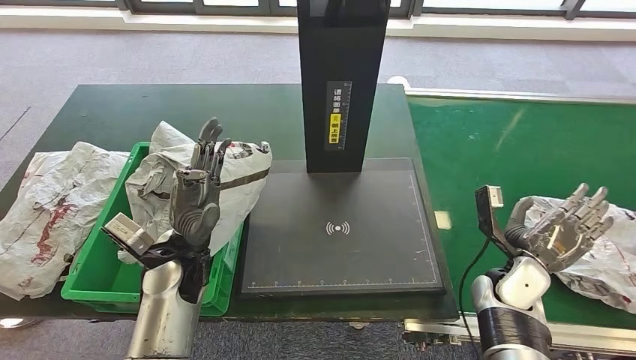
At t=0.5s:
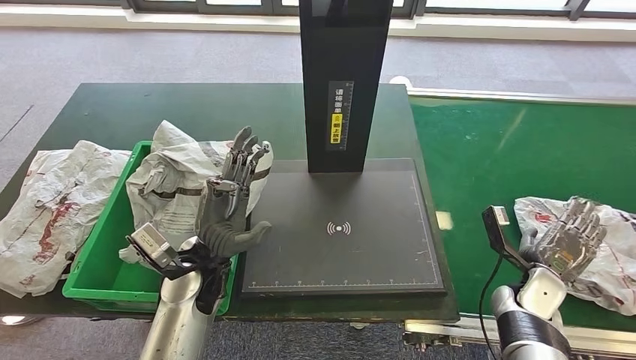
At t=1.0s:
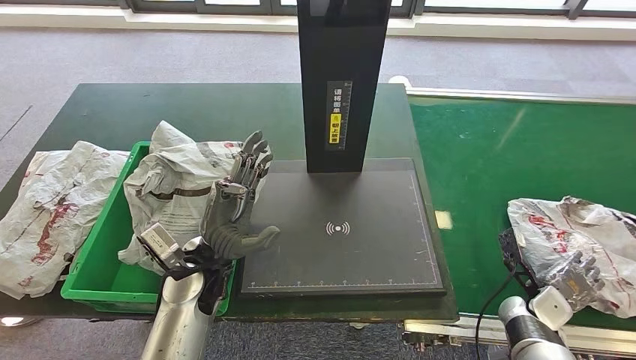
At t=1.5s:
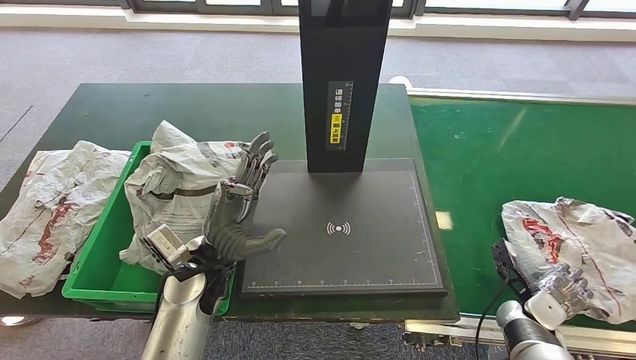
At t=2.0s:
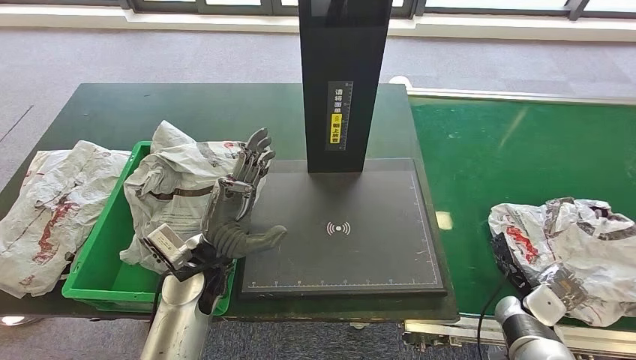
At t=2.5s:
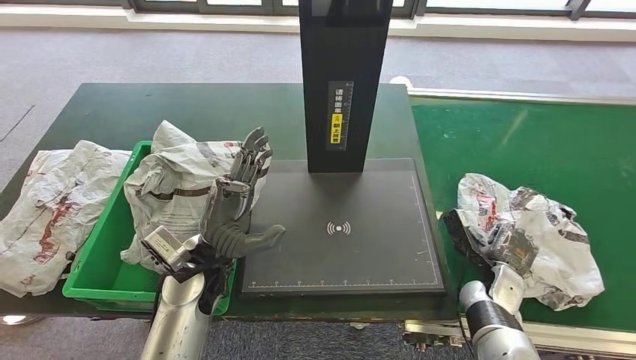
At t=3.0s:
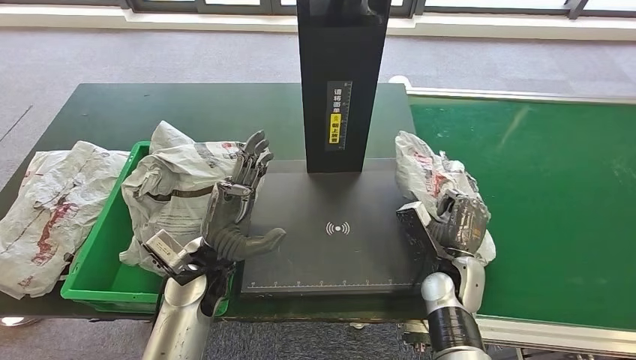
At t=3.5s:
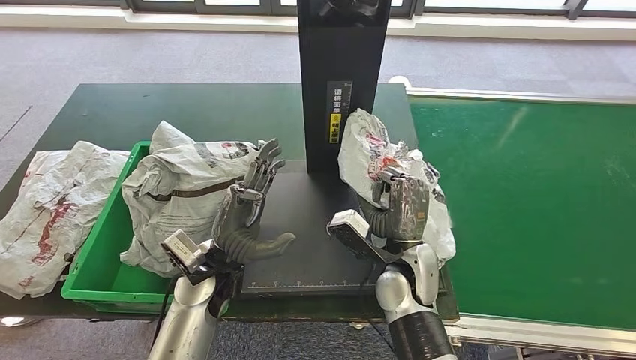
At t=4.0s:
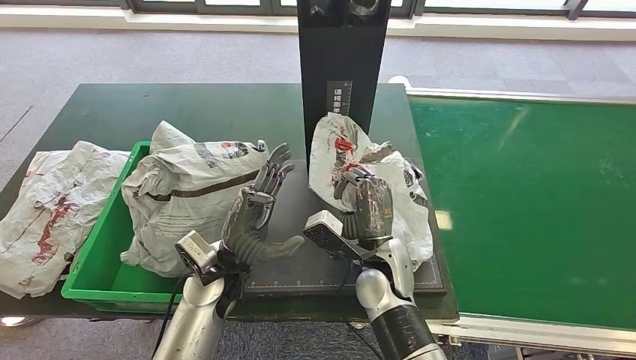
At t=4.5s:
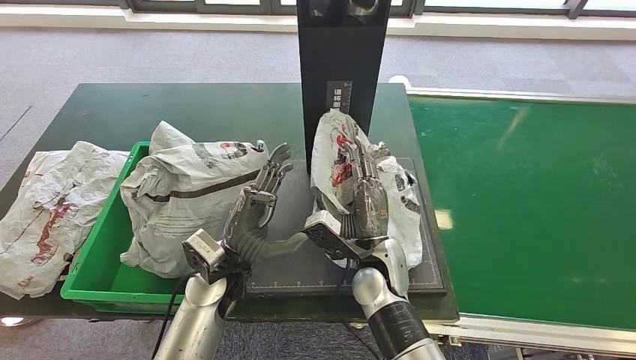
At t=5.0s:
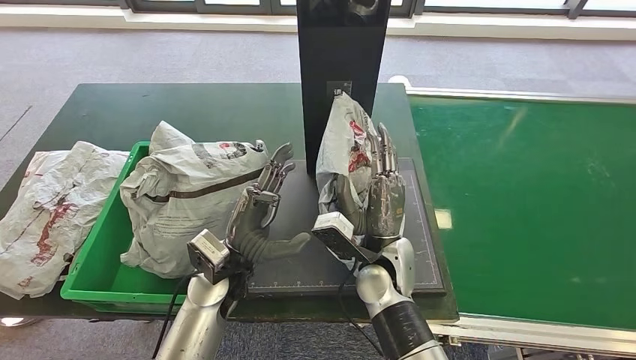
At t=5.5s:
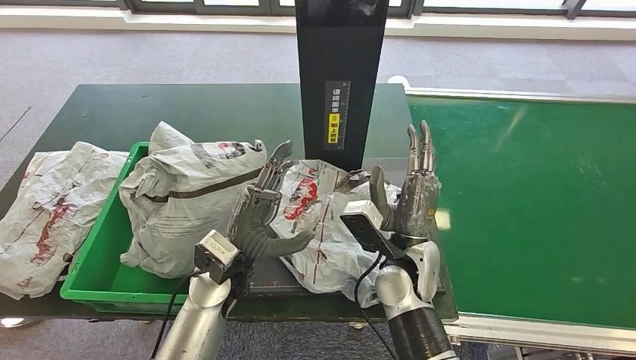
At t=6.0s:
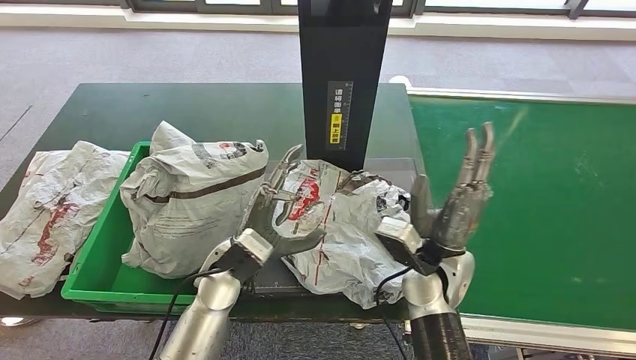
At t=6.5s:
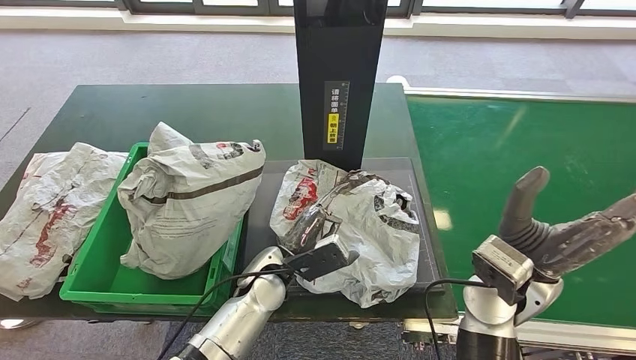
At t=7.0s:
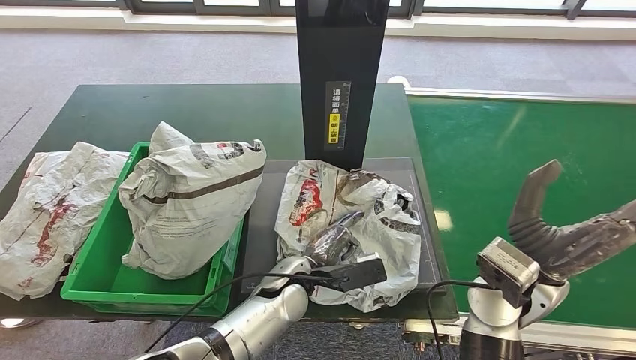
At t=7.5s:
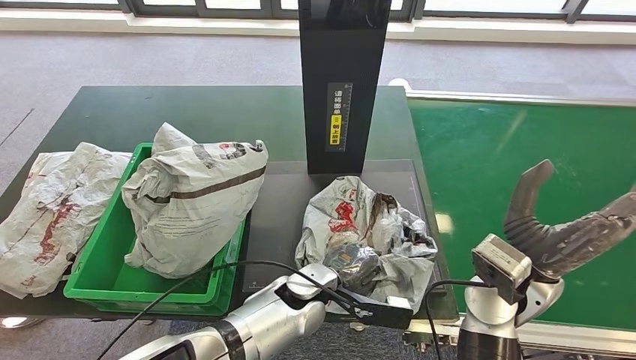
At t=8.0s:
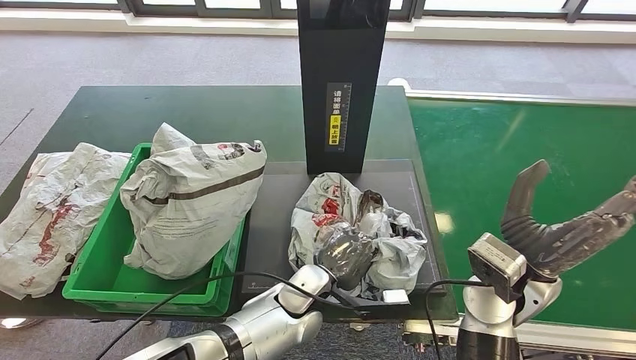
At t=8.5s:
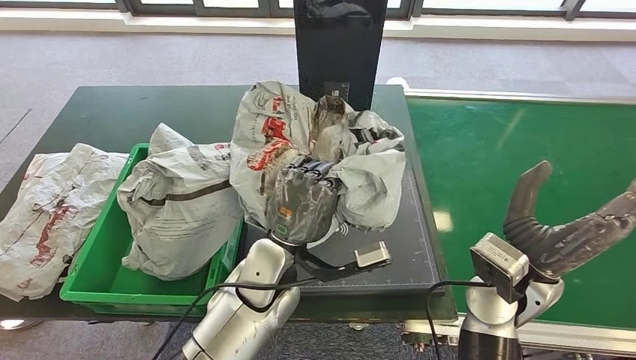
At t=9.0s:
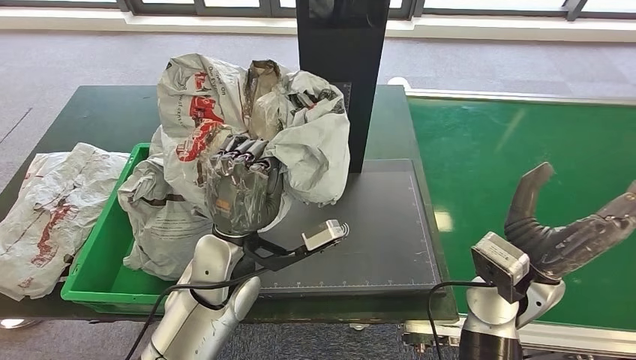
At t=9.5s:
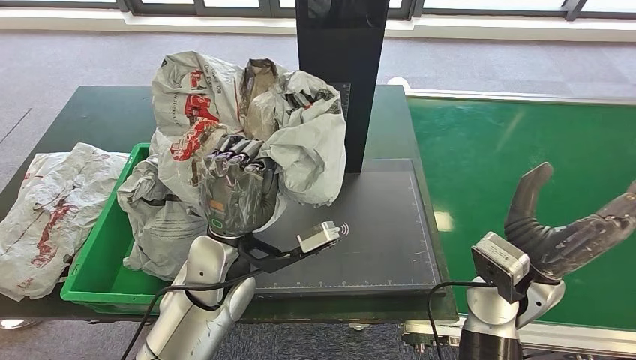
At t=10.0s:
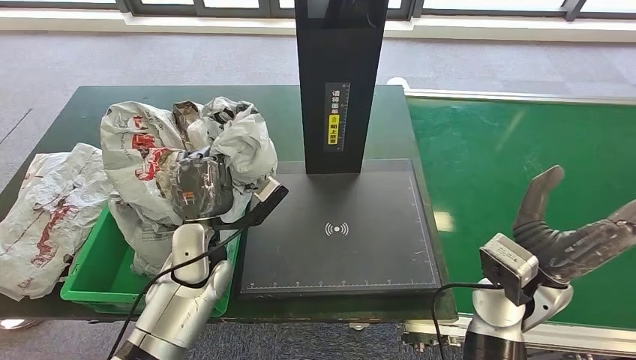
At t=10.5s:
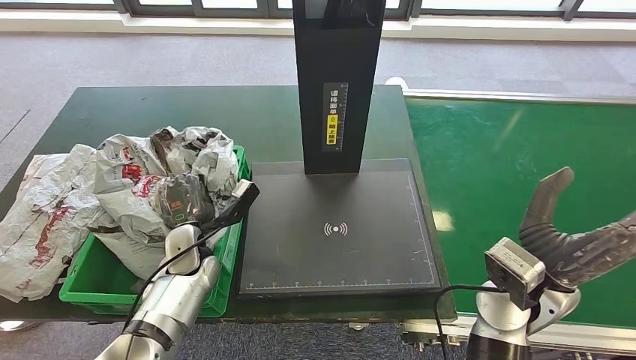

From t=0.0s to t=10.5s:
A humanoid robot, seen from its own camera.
Step, from t=0.0s to t=3.0s: Pick up the parcel from the conveyor belt.
Step, from t=3.5s to t=6.5s: Place the parcel onto the inbound machine.
Step, from t=7.0s to t=8.5s: Pick up the parcel from the inbound machine.
From t=0.0s to t=2.0s: The right hand shifts approximately 10 cm downward and to the right.

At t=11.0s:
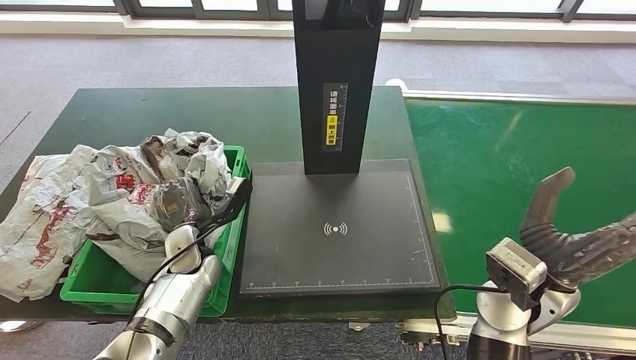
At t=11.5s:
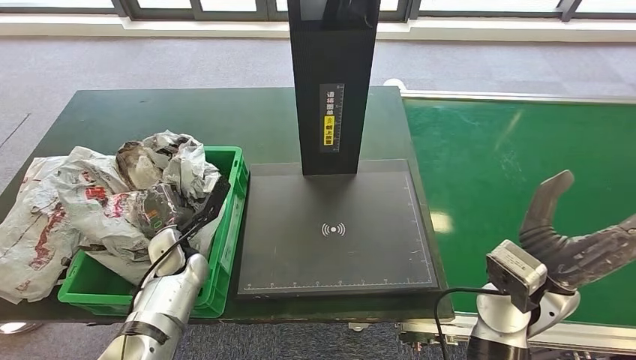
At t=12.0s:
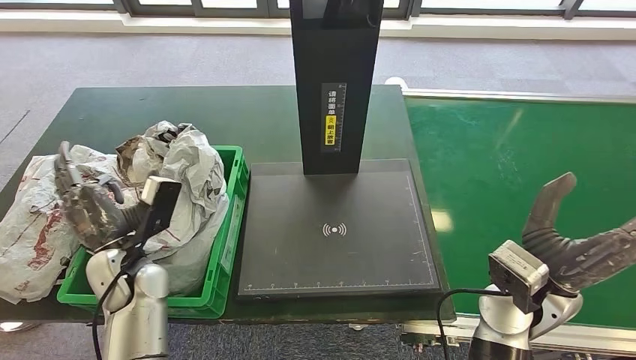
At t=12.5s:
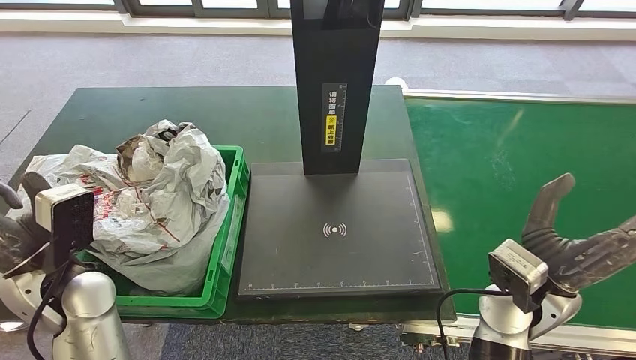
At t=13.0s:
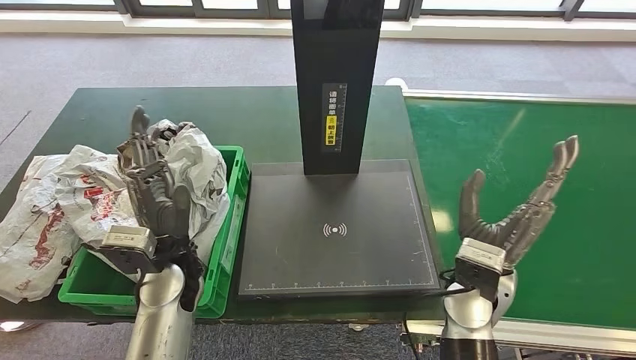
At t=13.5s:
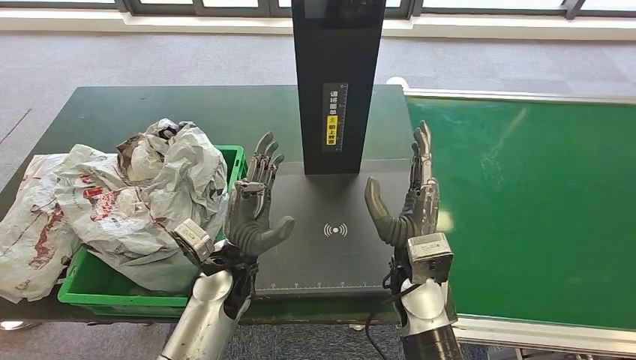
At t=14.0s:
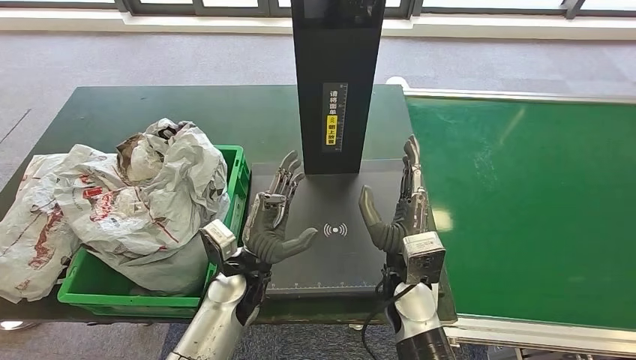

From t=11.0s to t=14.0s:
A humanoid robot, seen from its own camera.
Step, from t=11.0s to t=14.0s: Place the parcel into the delivery box.
